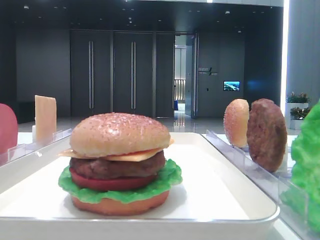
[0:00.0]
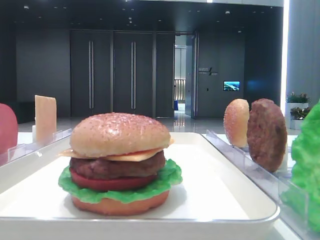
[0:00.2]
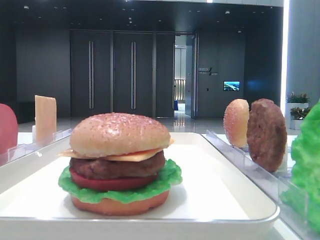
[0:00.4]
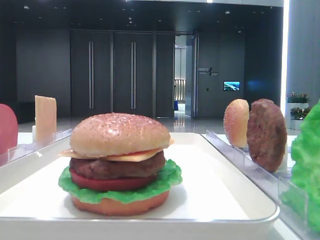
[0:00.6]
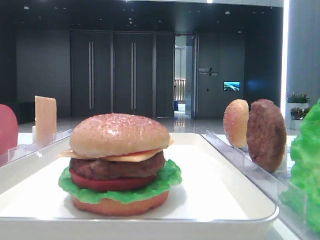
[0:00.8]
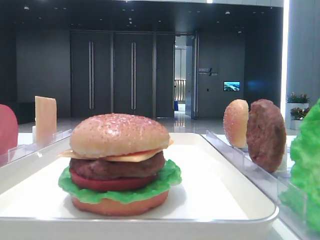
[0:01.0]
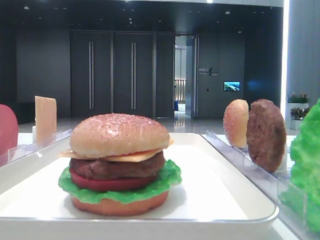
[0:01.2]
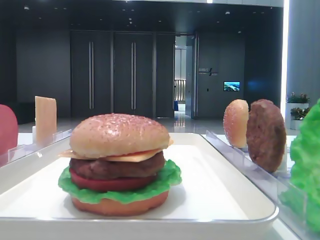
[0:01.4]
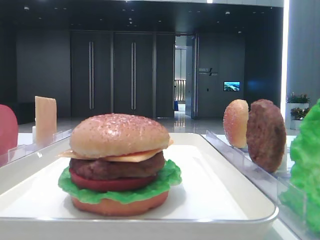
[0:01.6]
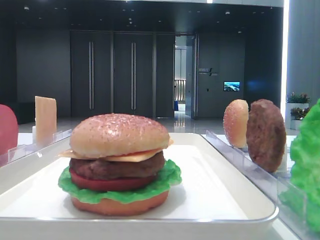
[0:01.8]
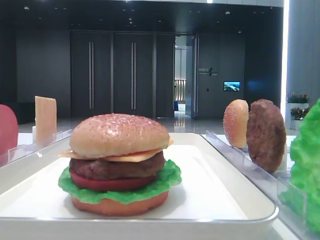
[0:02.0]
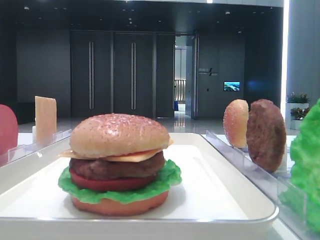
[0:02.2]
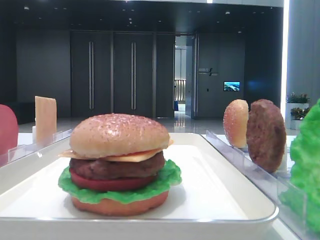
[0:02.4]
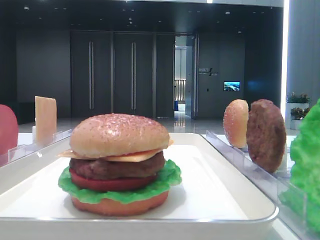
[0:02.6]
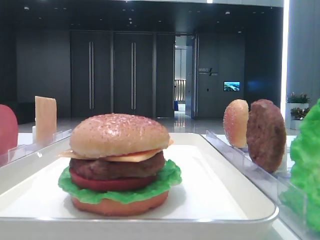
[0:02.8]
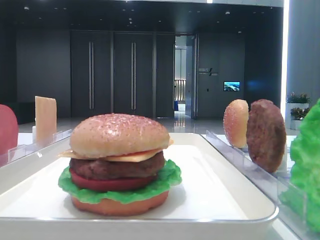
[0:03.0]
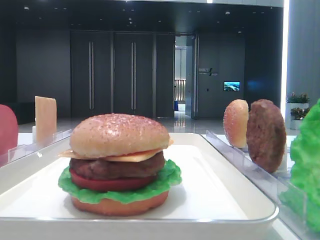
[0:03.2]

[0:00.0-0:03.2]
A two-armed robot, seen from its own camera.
0:00.0 to 0:01.6: The right gripper travels backward by some 25 cm.
0:01.6 to 0:03.2: Both grippers stay put.

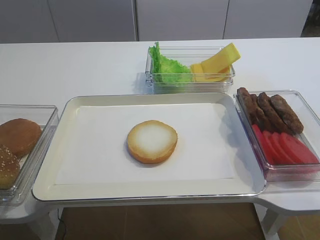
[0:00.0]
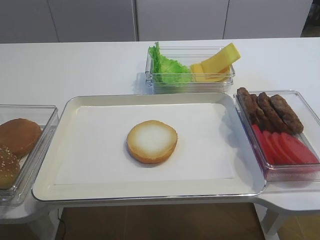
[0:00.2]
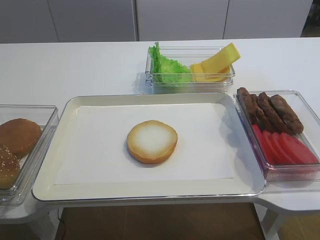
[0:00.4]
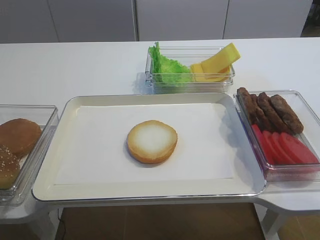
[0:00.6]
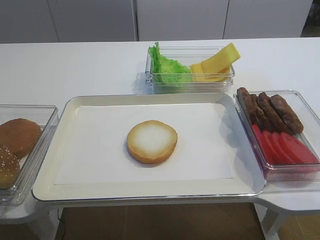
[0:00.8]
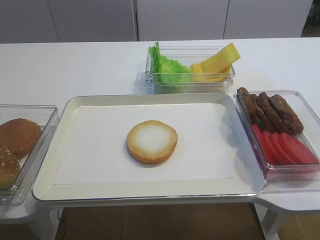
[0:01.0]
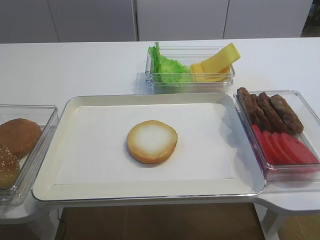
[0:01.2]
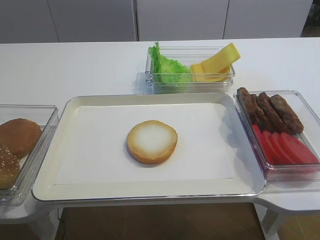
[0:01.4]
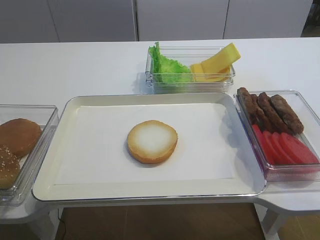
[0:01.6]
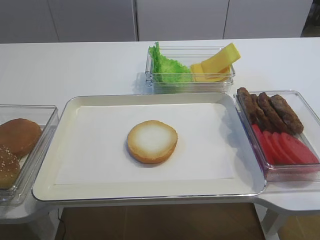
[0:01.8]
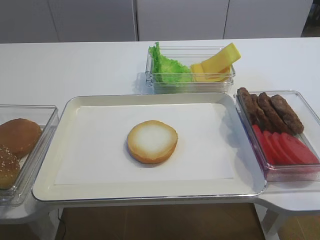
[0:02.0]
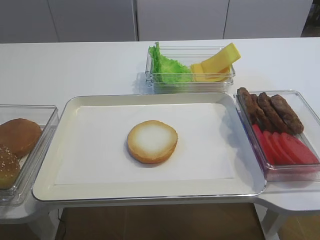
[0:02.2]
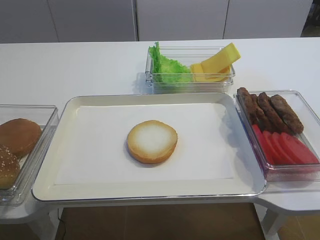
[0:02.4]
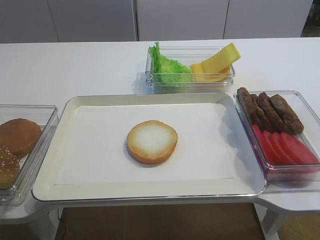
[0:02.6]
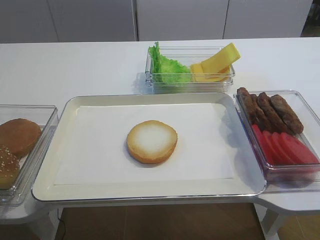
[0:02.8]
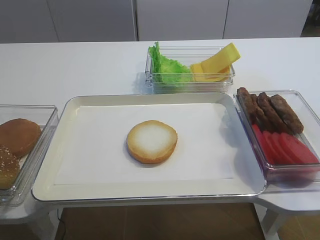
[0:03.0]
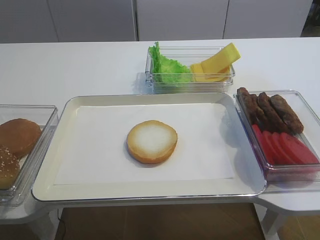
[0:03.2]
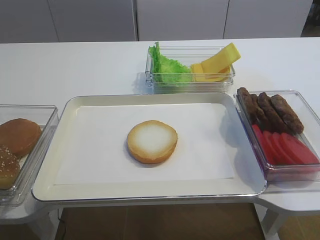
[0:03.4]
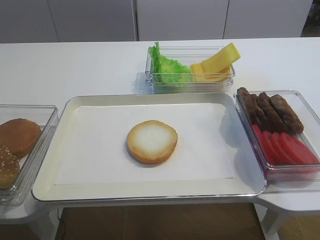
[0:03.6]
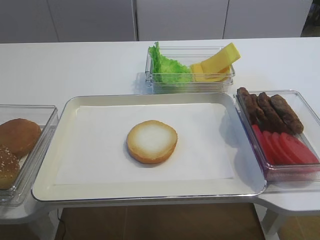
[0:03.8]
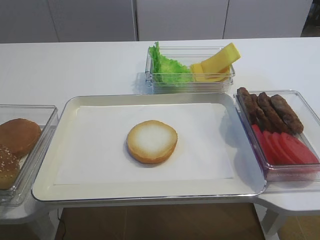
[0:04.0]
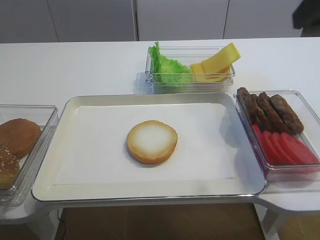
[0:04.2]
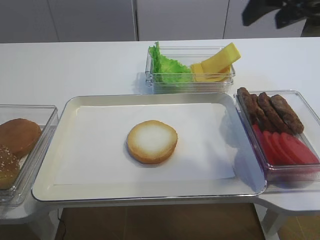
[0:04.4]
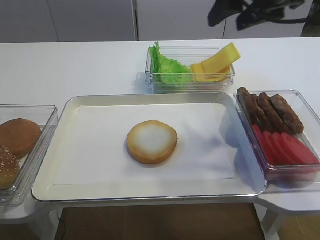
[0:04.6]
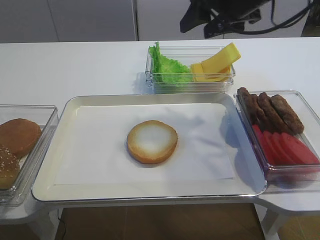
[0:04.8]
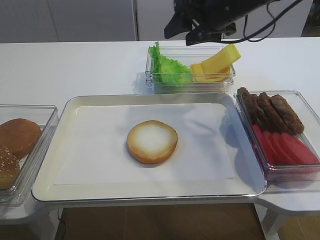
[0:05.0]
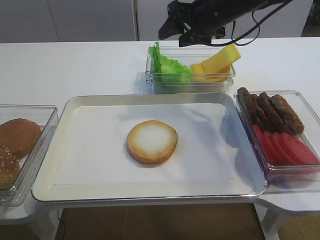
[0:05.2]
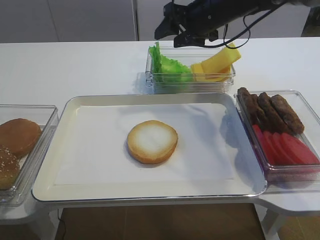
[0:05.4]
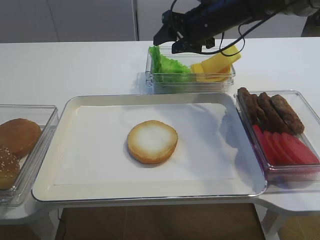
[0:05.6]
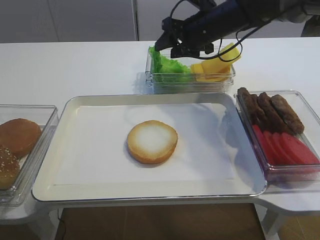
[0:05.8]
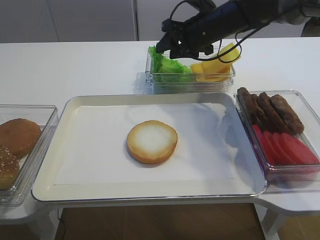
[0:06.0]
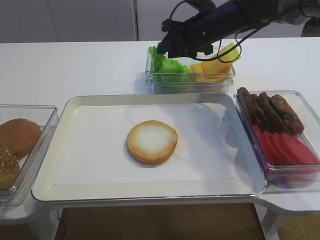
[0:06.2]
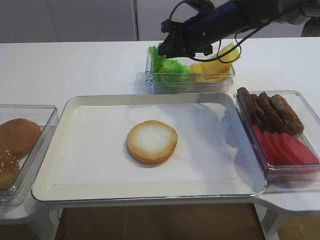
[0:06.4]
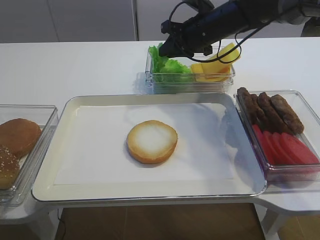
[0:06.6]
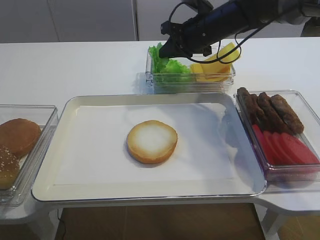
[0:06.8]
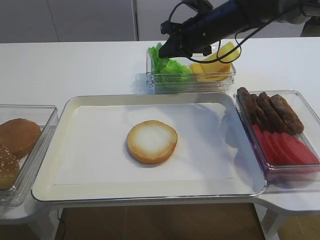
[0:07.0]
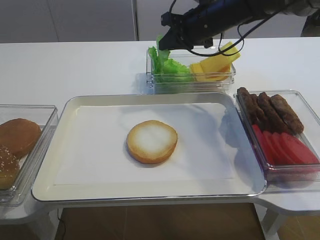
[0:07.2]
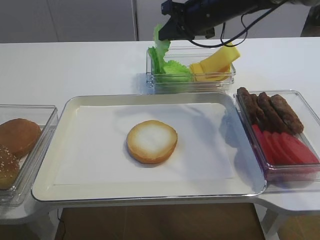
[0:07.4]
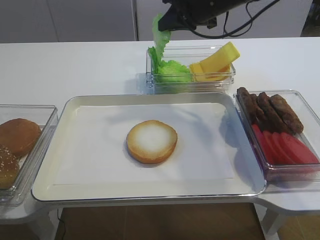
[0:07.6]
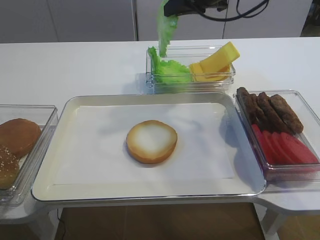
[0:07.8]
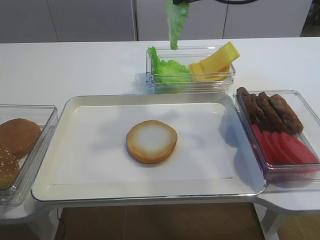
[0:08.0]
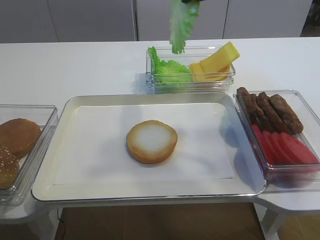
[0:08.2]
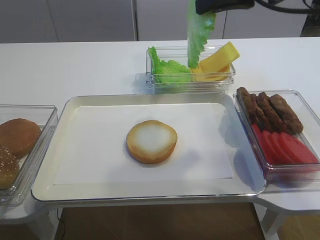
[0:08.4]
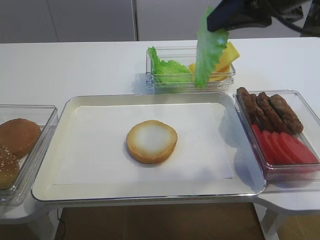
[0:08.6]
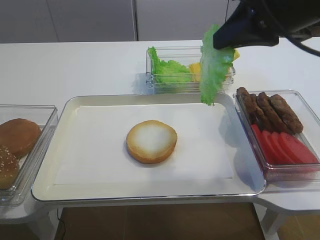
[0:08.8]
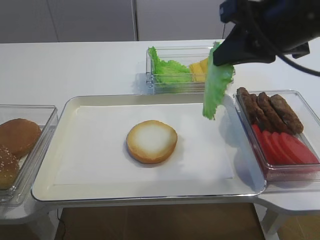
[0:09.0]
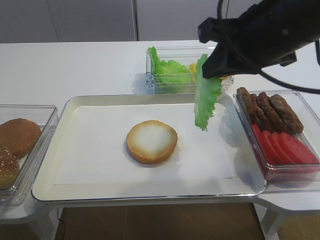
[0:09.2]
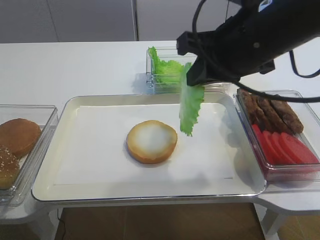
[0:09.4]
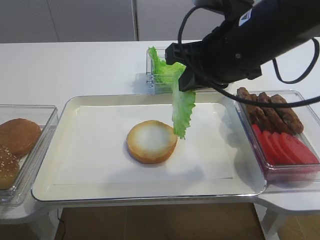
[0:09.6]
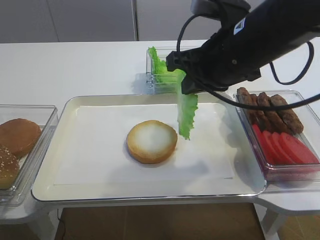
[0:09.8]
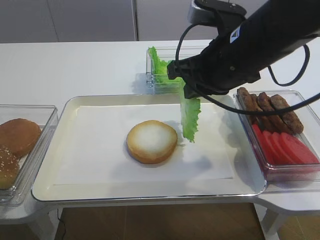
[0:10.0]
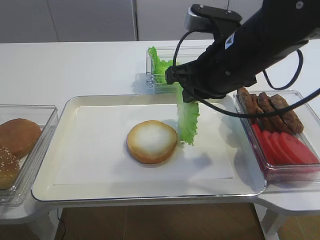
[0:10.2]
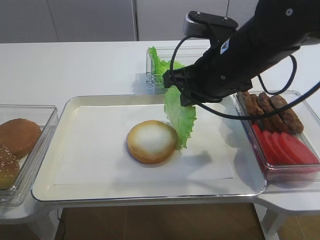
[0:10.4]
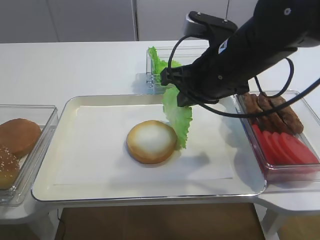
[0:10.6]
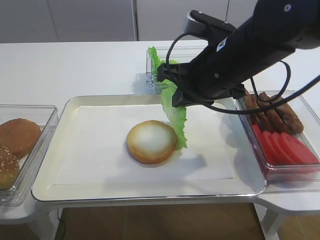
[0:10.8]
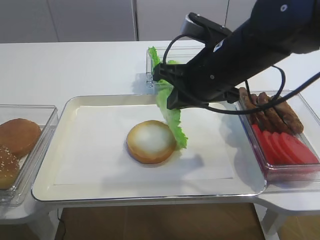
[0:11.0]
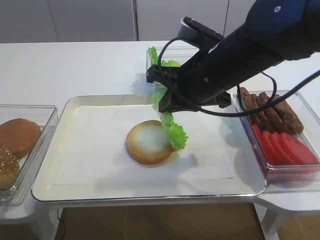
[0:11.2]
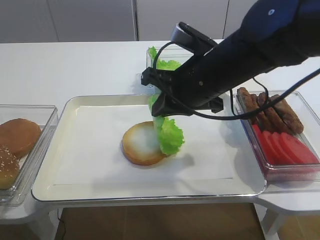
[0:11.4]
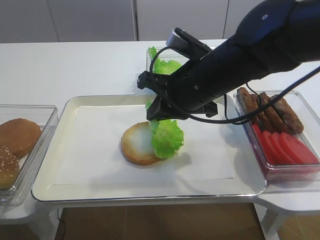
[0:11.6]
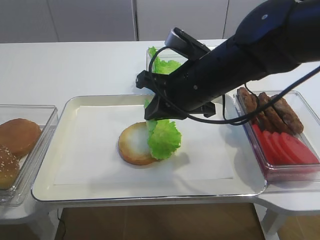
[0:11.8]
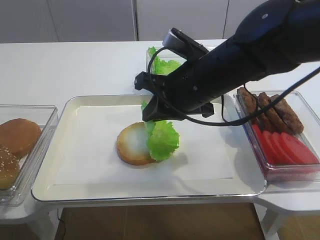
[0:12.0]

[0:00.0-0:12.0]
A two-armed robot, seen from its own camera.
Step, 0:00.0 to 0:08.2: Pick up the lettuce leaf with the right gripper.
0:01.6 to 0:03.0: The right gripper travels forward and upward by some 10 cm.
0:03.0 to 0:04.4: The right gripper goes some 20 cm forward.
0:04.4 to 0:06.0: The right gripper travels forward, downward and to the left by some 25 cm.
0:06.0 to 0:07.6: The right gripper is displaced upward by about 5 cm, and closes.
0:07.6 to 0:09.0: The right gripper is displaced backward by about 20 cm.
0:09.0 to 0:10.4: The right gripper heads downward and to the left, covering some 10 cm.

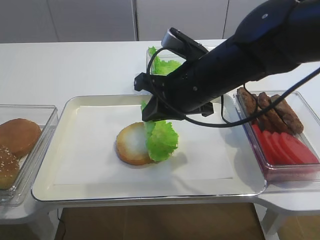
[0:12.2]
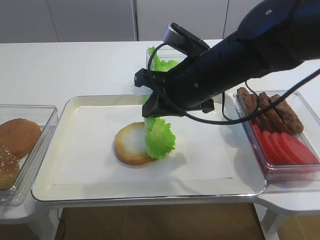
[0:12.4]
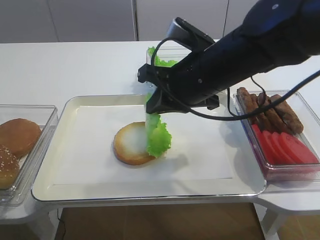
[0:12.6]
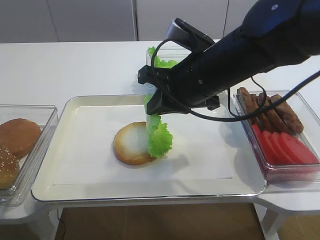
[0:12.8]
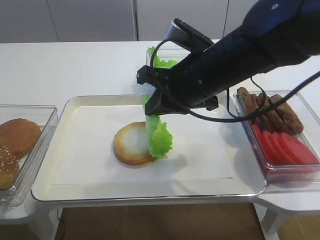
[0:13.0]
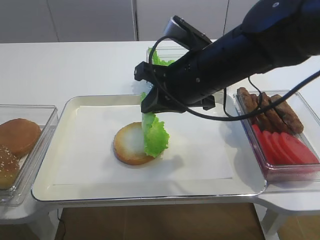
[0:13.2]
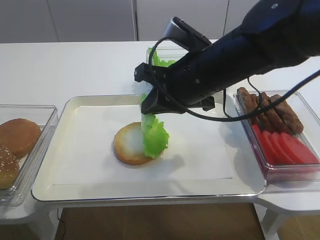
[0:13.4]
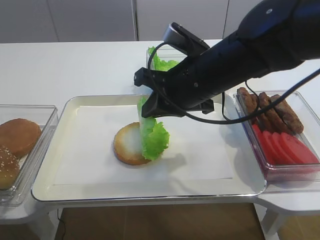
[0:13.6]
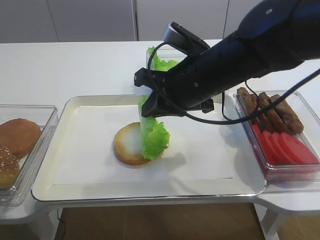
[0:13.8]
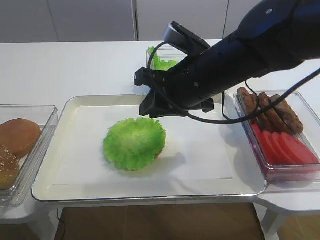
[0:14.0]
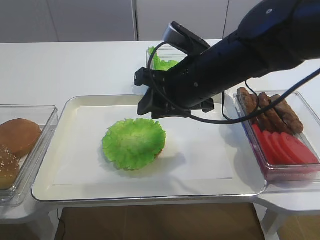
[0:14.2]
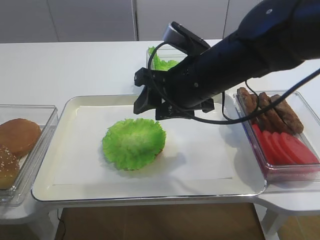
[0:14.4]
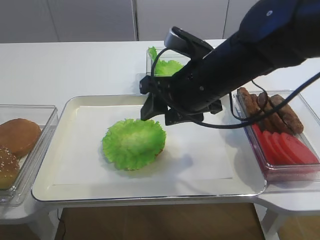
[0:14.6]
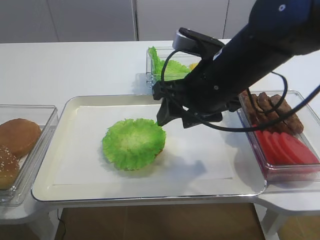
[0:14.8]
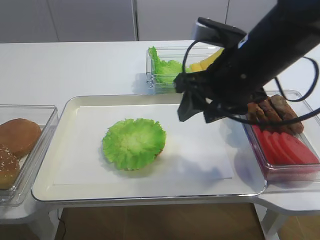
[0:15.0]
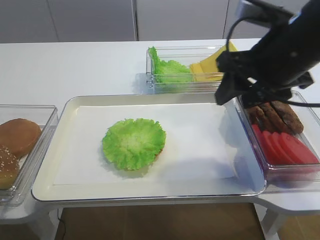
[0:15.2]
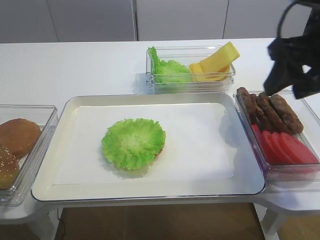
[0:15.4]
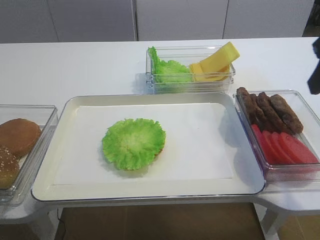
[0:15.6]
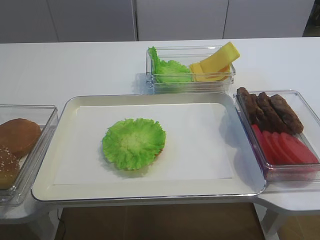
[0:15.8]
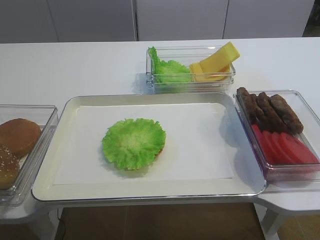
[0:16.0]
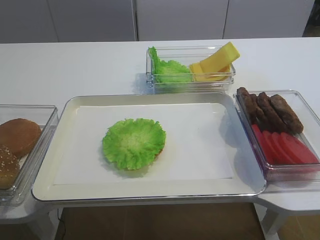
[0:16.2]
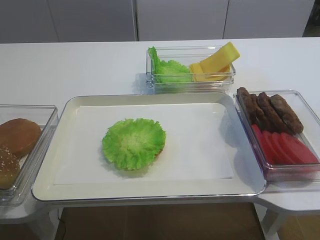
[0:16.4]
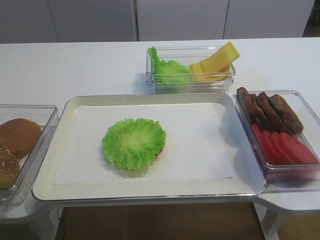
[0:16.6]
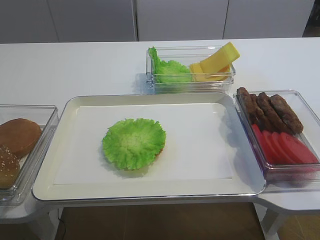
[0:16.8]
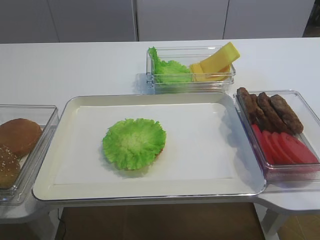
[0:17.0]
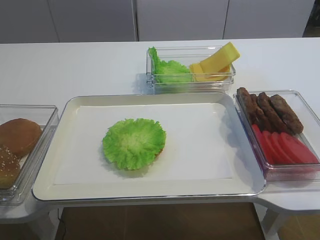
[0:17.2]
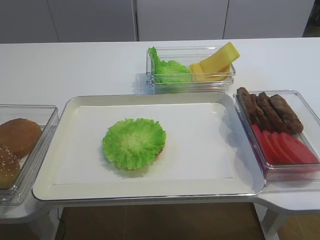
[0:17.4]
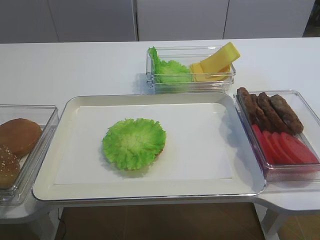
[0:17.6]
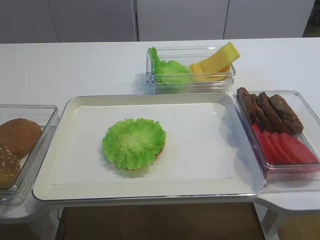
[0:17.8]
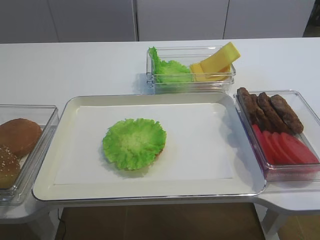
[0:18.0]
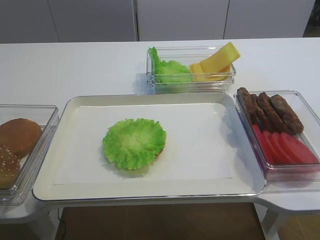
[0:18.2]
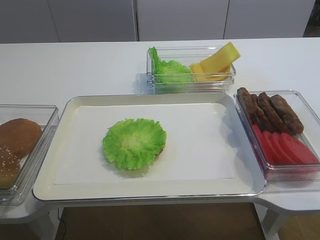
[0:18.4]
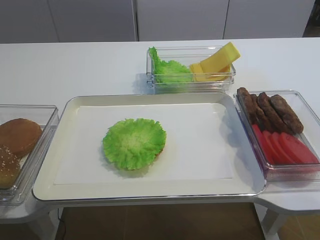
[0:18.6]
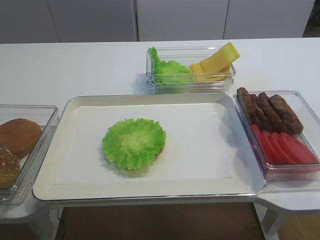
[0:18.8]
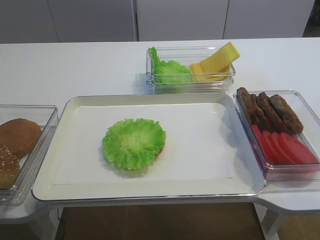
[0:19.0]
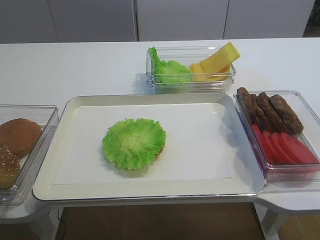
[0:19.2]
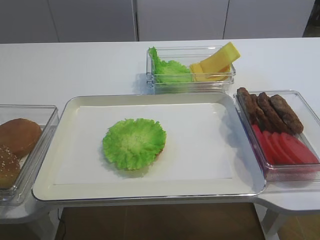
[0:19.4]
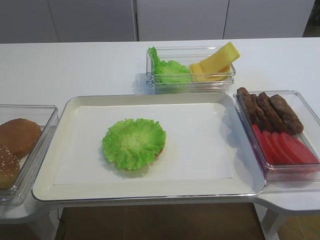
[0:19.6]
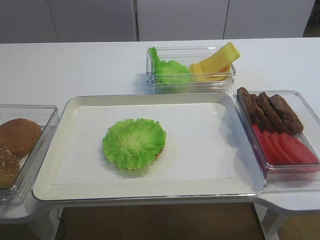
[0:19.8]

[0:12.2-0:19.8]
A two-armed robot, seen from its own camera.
Step, 0:12.2 to 0:14.4: Place the lettuce leaf on the bread slice with the right gripper.
0:12.2 to 0:13.8: The grippers make only small movements.
0:13.8 to 0:15.2: The right gripper goes some 10 cm to the right, and opens.
0:15.2 to 0:16.8: The right gripper shifts about 25 cm backward and to the right.
0:16.8 to 0:18.2: The right gripper shifts approximately 10 cm downward.
0:18.2 to 0:19.8: Neither gripper changes place.
